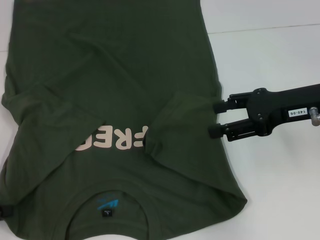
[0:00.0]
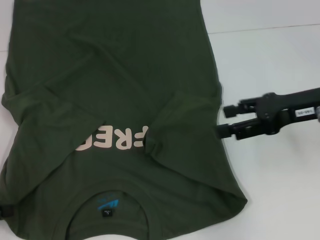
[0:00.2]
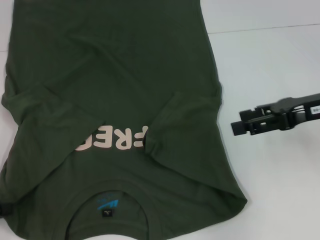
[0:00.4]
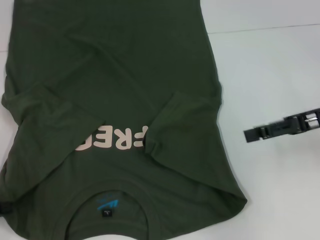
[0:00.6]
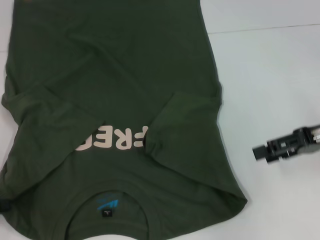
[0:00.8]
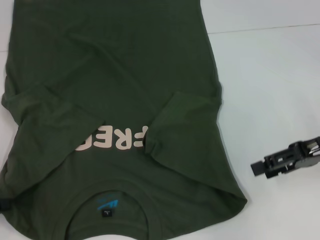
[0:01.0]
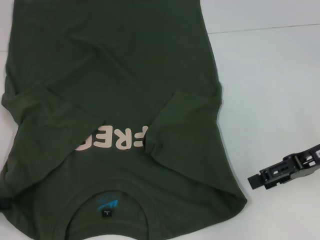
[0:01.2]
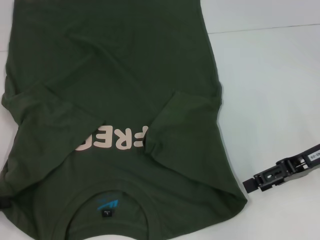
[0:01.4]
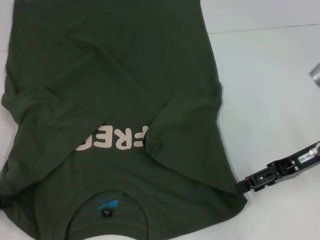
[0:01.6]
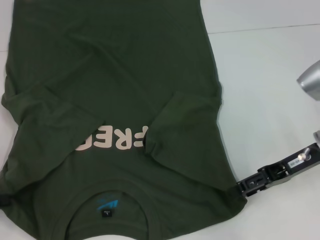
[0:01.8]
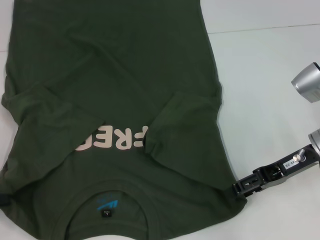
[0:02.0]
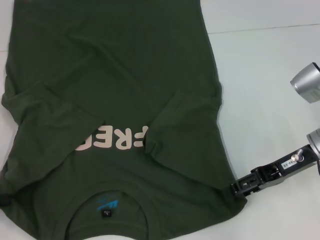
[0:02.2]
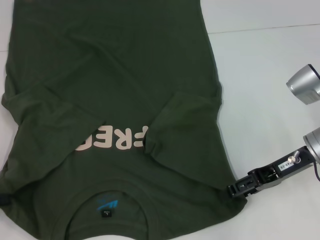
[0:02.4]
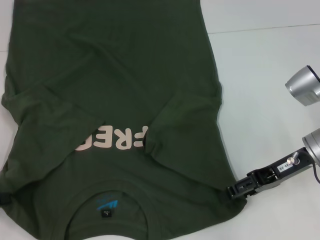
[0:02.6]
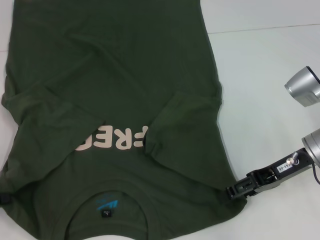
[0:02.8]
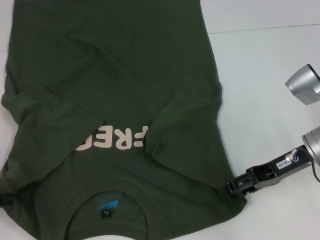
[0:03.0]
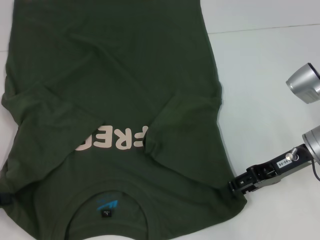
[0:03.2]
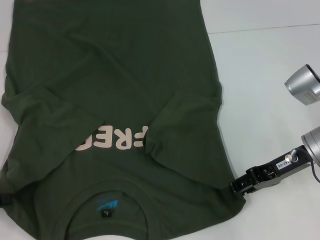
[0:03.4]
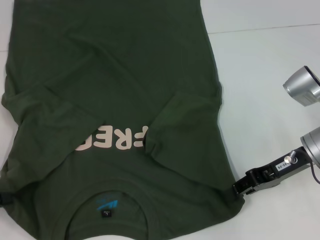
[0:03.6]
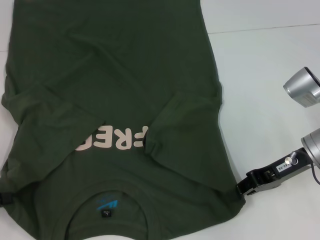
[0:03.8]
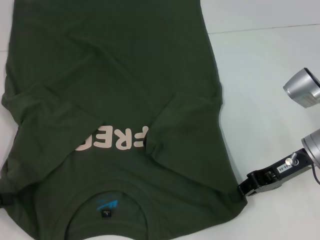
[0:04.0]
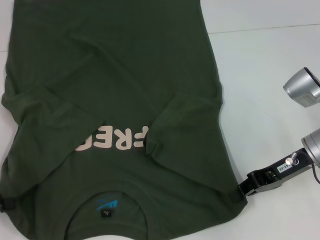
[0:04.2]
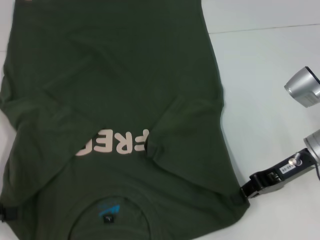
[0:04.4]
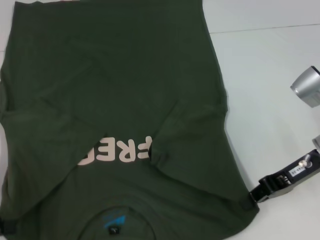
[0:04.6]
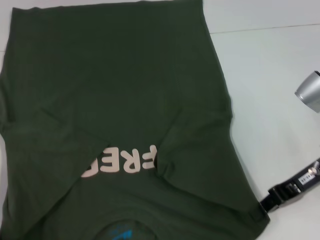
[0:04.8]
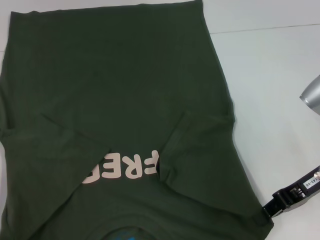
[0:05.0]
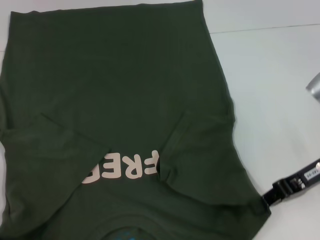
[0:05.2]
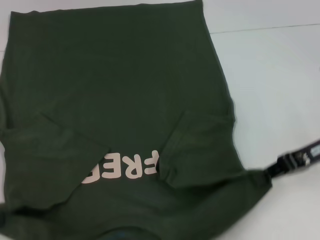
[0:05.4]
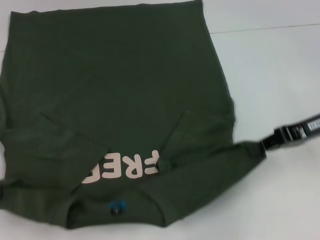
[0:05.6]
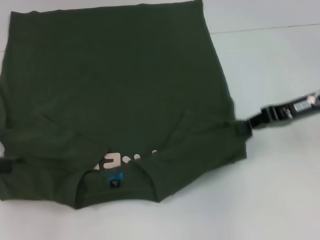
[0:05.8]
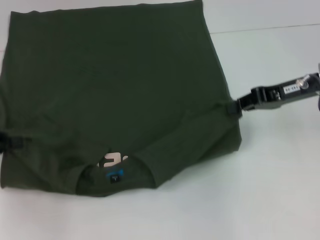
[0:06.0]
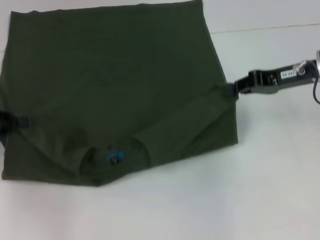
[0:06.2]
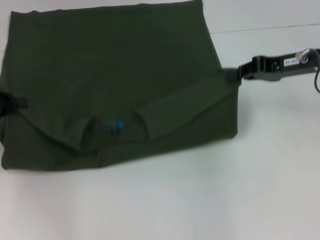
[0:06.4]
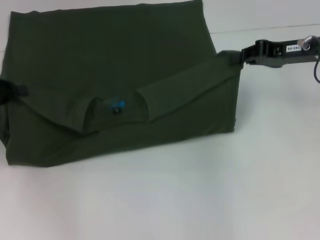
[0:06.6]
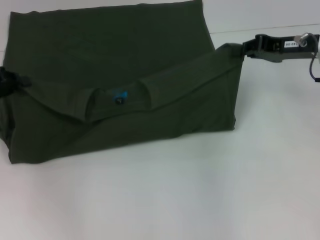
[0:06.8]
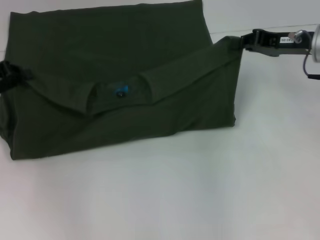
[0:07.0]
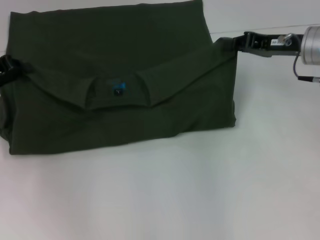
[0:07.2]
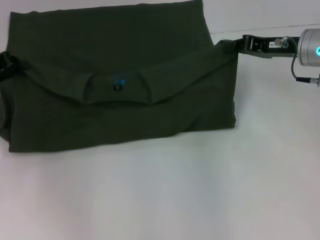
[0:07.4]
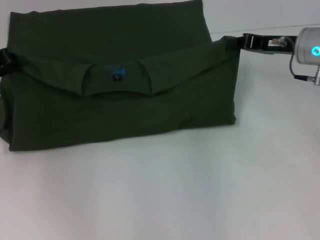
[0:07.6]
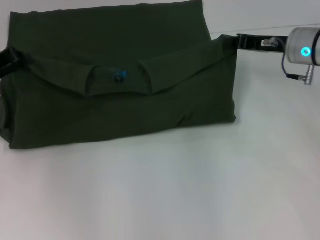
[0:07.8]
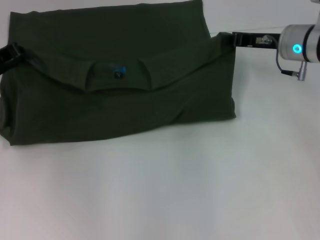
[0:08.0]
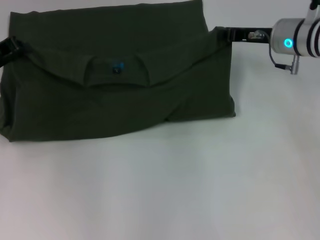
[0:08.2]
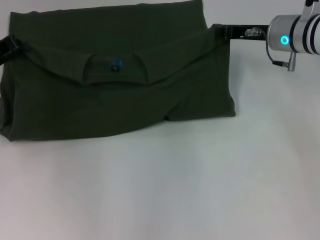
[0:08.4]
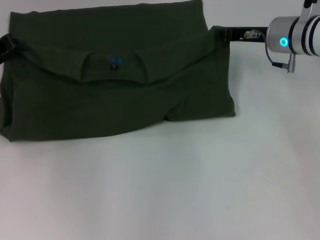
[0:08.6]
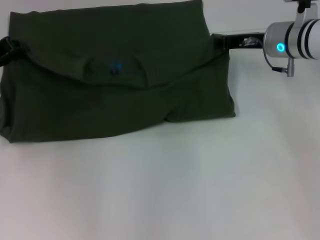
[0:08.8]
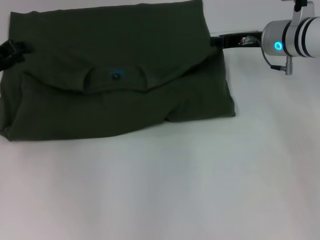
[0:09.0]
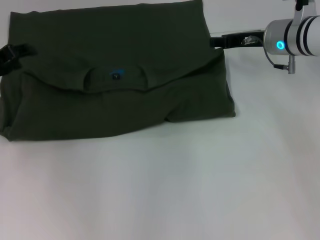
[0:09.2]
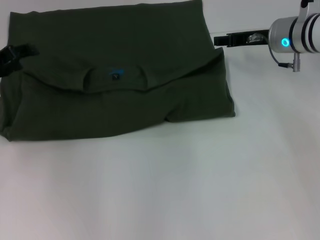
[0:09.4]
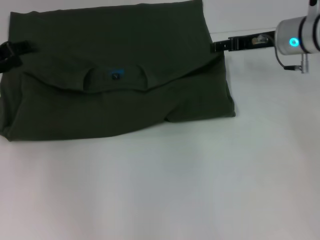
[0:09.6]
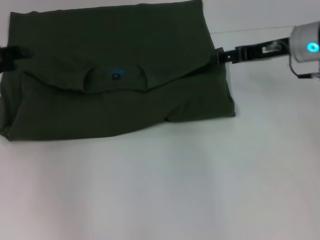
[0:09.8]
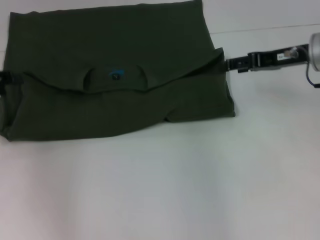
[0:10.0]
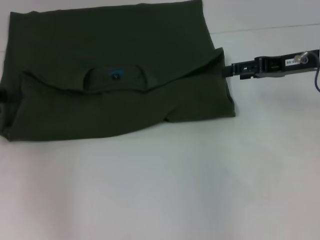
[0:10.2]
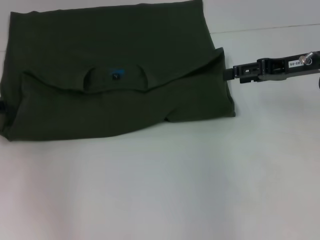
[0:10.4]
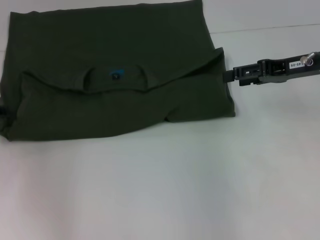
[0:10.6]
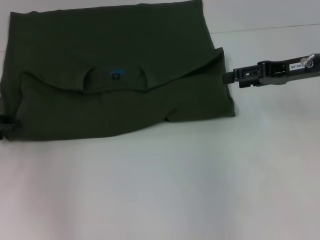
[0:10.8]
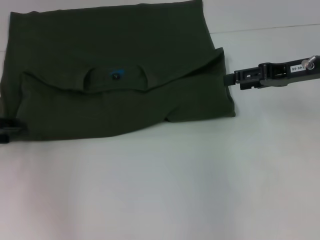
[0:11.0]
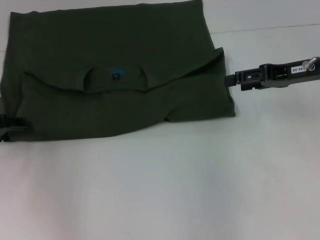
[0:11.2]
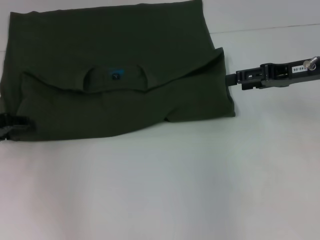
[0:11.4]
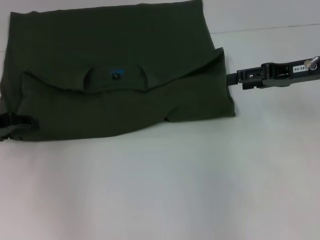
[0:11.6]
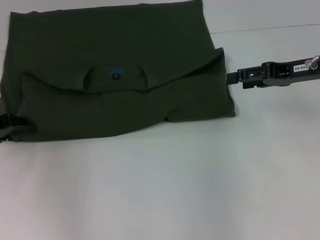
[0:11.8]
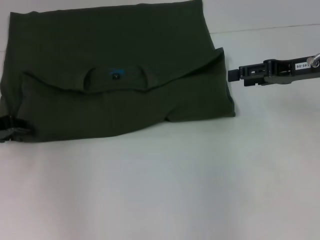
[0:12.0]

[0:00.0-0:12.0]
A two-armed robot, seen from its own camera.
Step, 0:01.0 to 0:04.2: Grab the bottom right corner with your right hand.
Step, 0:04.4 to 0:09.2: Fold the clothes with your left hand.
Step, 0:04.4 to 0:09.2: Fold the clothes with your right hand.
0:00.0 to 0:01.6: The right gripper moves downward, approximately 5 cm.
0:01.6 to 0:03.0: The grippers move only a little.
0:03.0 to 0:04.4: The right gripper closes up.
0:04.4 to 0:06.0: The right gripper heads upward and forward, covering roughly 10 cm, while the left gripper moves forward, approximately 5 cm.
0:06.0 to 0:07.6: The right gripper heads forward, covering some 5 cm. The left gripper shifts approximately 10 cm forward.
0:07.6 to 0:09.0: The right gripper shifts by about 5 cm.
0:09.0 to 0:10.4: The left gripper travels to the left and backward by approximately 10 cm, and opens its fingers, while the right gripper goes roughly 10 cm backward and to the right, and opens its fingers.
0:10.4 to 0:12.0: The grippers move only a little.

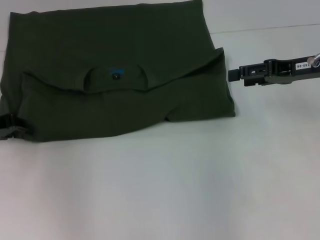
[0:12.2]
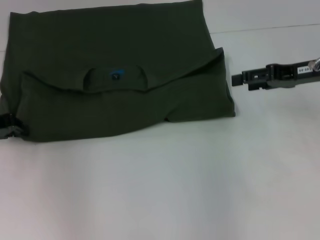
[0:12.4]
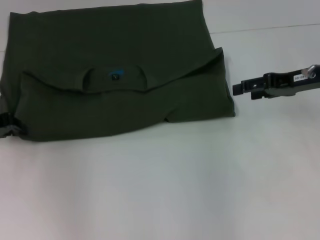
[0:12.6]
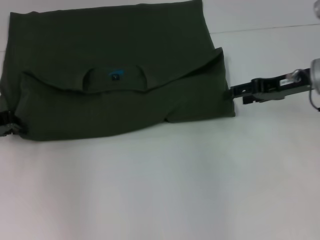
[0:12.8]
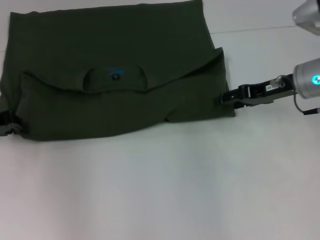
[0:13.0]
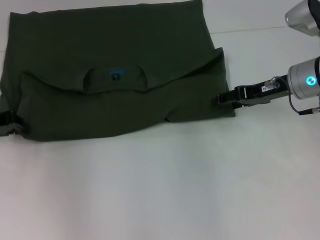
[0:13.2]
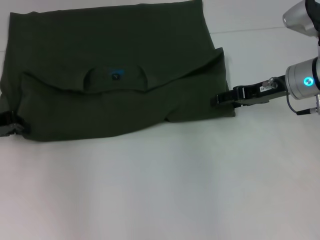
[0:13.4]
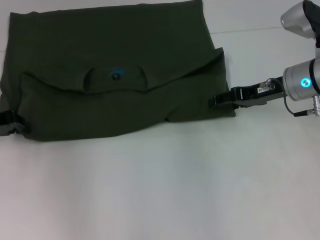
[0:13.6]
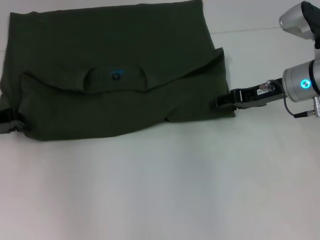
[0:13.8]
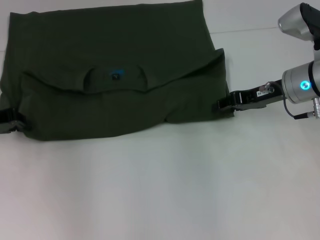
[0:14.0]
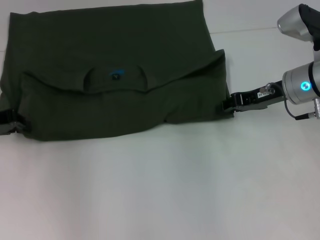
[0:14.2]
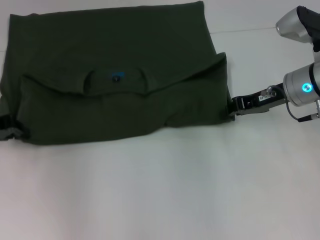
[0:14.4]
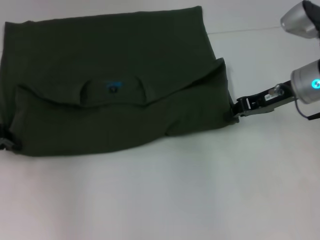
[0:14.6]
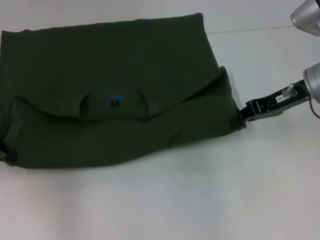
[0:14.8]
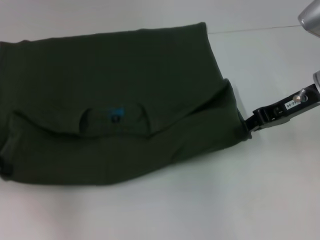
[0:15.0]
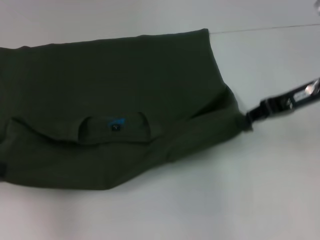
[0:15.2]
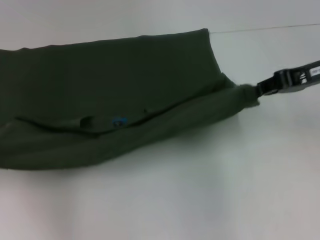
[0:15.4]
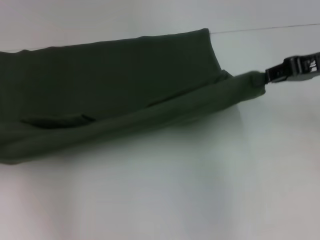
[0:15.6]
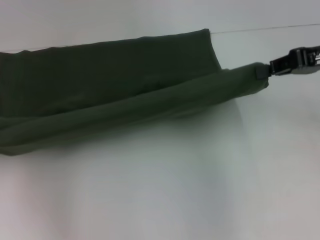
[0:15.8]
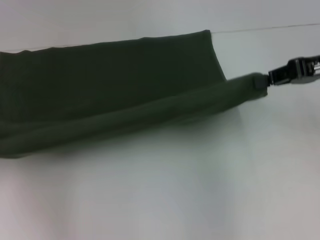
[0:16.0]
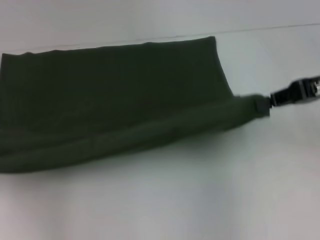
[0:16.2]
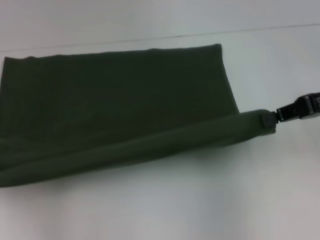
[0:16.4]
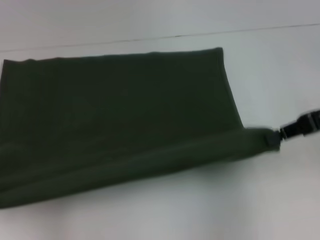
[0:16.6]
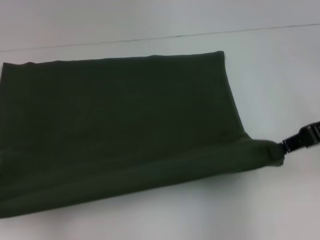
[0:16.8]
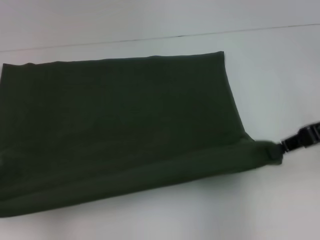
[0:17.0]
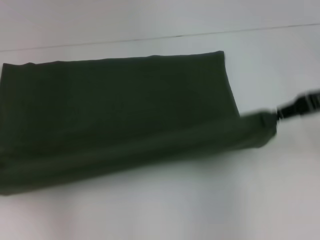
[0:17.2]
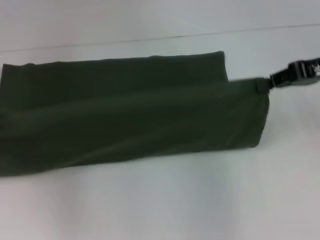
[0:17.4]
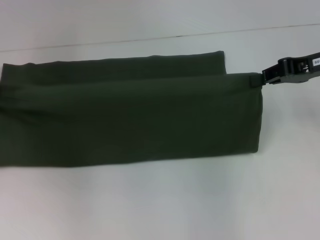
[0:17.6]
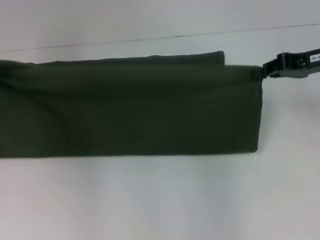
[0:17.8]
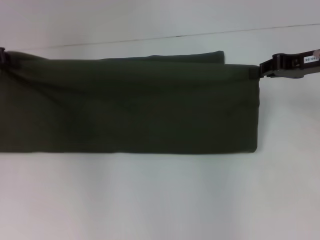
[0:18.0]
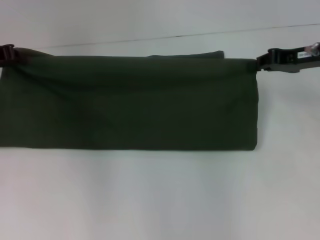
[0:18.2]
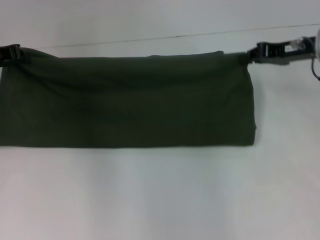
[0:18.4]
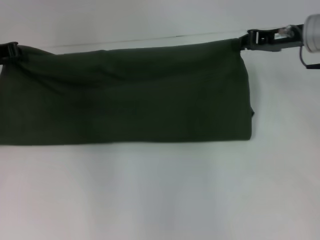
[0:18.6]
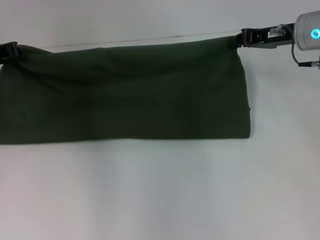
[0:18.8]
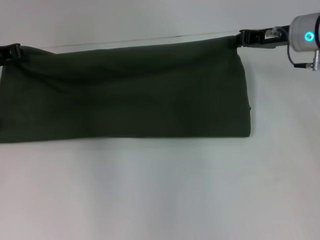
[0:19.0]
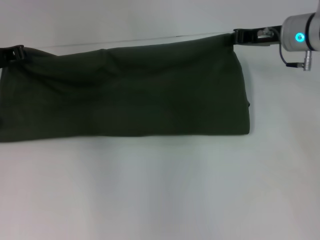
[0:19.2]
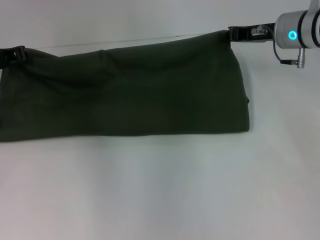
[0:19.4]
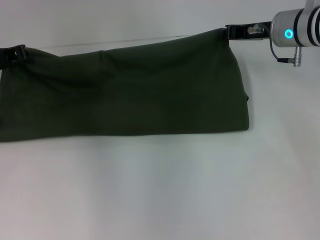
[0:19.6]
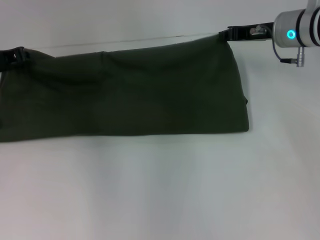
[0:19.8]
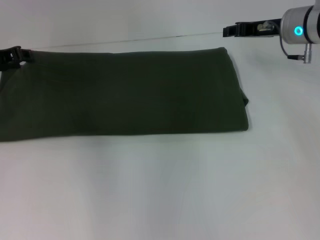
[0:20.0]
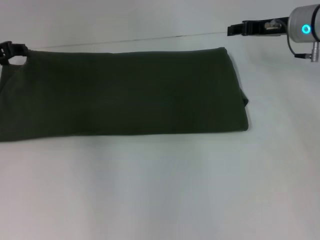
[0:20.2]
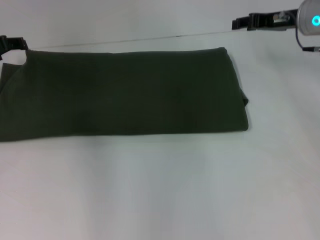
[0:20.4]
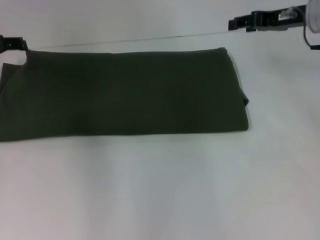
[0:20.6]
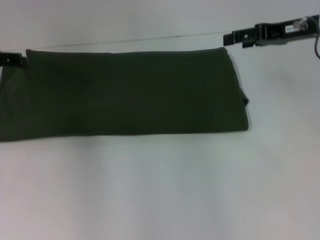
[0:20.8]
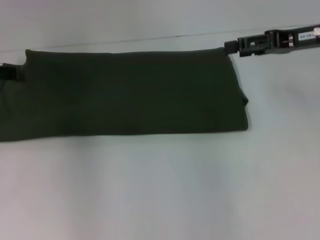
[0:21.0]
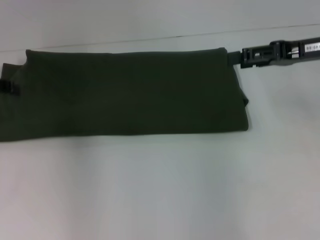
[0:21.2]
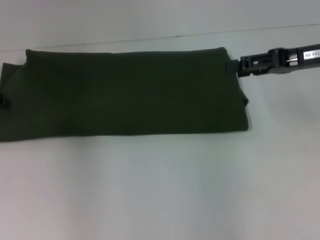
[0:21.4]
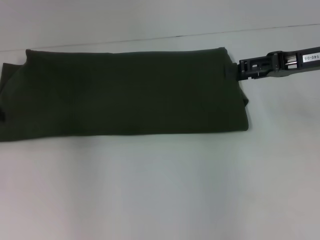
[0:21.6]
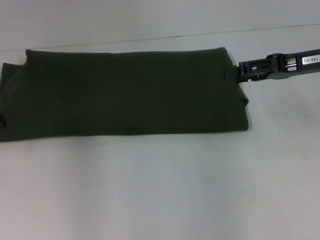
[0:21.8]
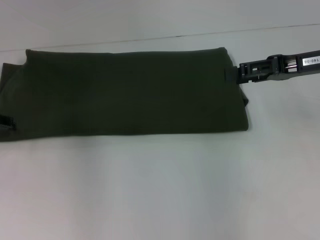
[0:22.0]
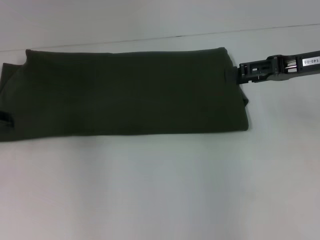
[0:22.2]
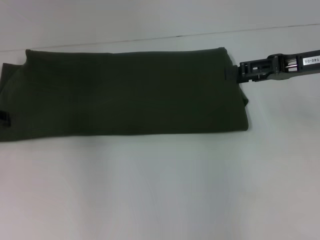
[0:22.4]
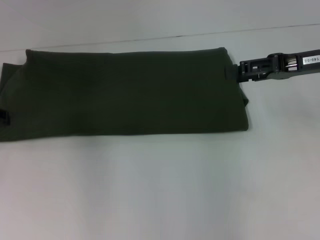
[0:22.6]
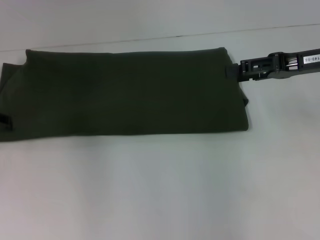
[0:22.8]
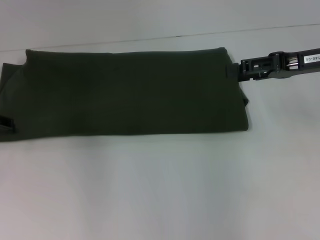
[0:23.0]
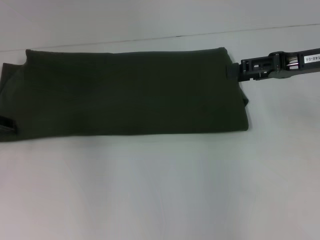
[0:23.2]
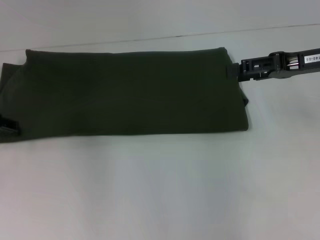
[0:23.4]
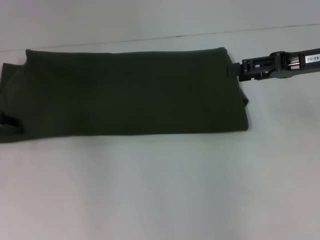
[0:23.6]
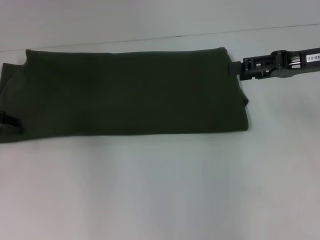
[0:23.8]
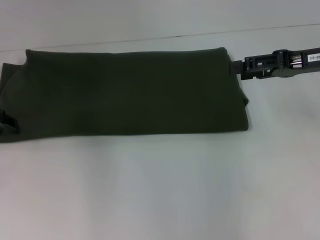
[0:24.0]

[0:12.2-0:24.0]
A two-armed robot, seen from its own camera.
Step, 0:12.2 to 0:15.0: Pull the clothes with your left hand.
Step, 0:12.2 to 0:15.0: Pull the clothes with your right hand.
Step, 0:15.2 to 0:20.0: Fold the clothes with your left hand.
Step, 0:15.2 to 0:20.0: Fold the clothes with your right hand.
0:12.2 to 0:13.6: The right gripper moves approximately 5 cm.
0:13.6 to 0:15.2: The right gripper goes roughly 5 cm upward, and closes its fingers, while the left gripper is displaced upward and backward by about 10 cm.
0:15.2 to 0:16.6: The right gripper changes place by about 5 cm. The left gripper moves approximately 5 cm.
0:16.6 to 0:18.2: The right gripper travels forward by approximately 10 cm, while the left gripper travels forward and to the right by about 15 cm.
0:18.2 to 0:19.6: The right gripper travels to the left and forward by some 10 cm.
0:19.6 to 0:21.0: The left gripper moves some 5 cm, and opens up. Meanwhile the right gripper shifts approximately 10 cm backward and to the right, and opens up.
0:22.6 to 0:24.0: The grippers make only small movements.
